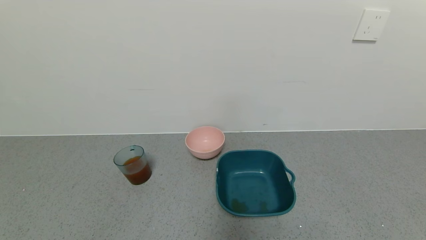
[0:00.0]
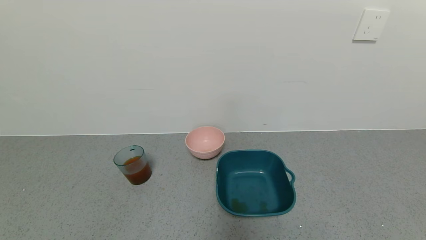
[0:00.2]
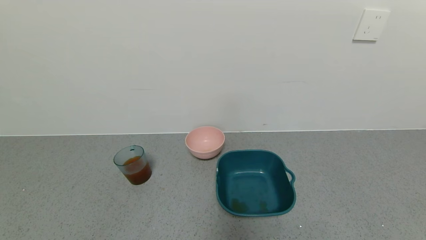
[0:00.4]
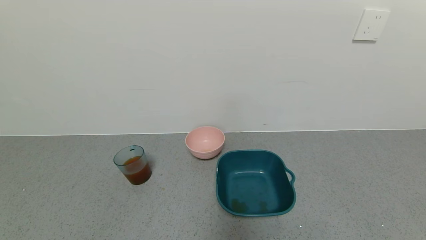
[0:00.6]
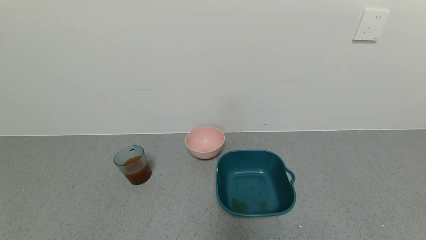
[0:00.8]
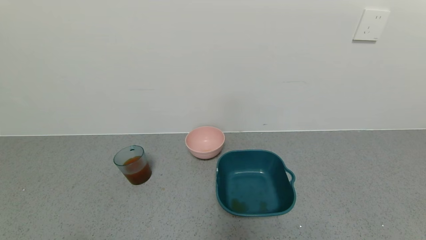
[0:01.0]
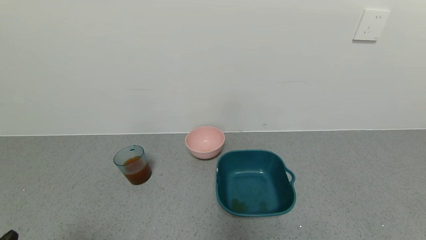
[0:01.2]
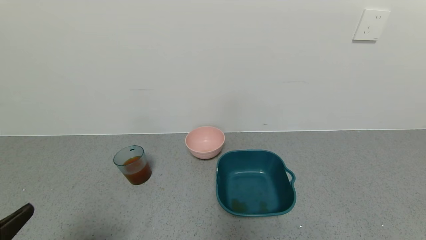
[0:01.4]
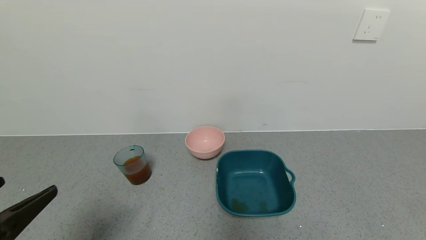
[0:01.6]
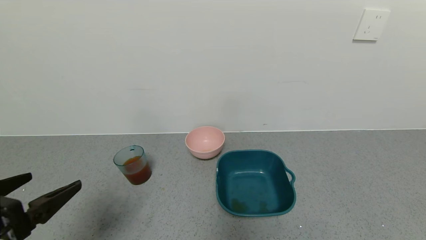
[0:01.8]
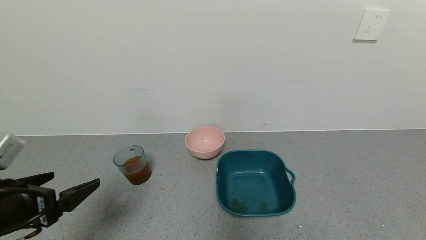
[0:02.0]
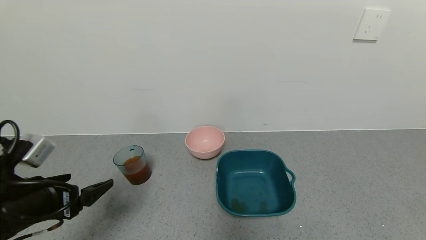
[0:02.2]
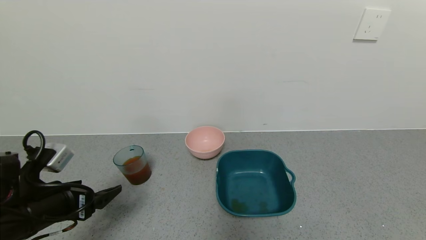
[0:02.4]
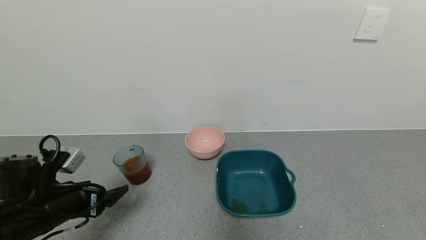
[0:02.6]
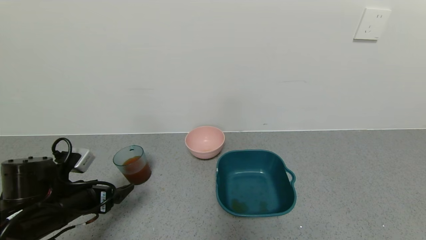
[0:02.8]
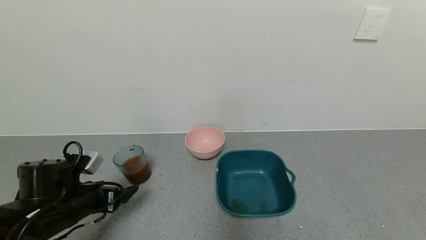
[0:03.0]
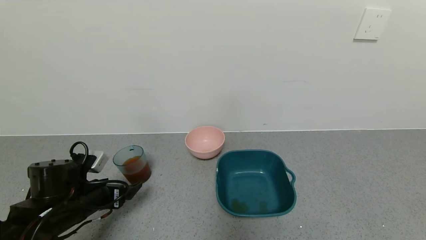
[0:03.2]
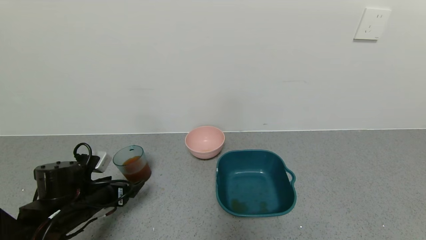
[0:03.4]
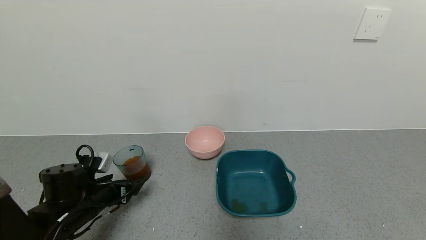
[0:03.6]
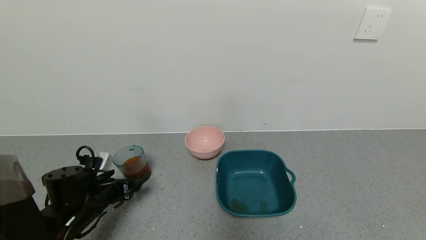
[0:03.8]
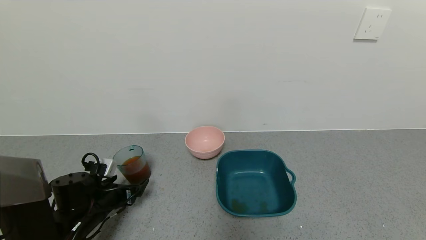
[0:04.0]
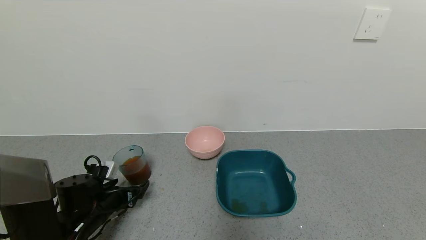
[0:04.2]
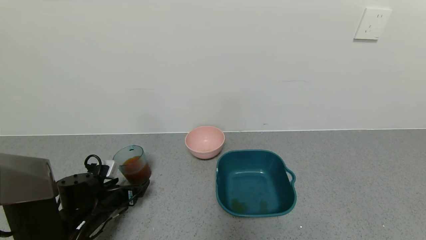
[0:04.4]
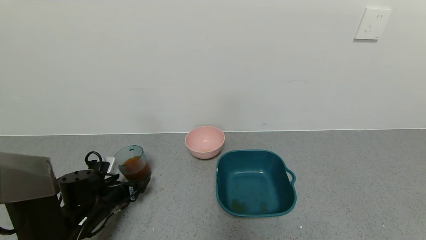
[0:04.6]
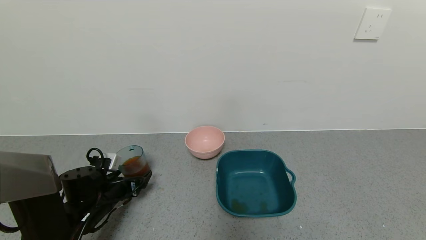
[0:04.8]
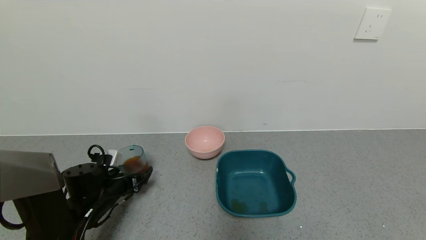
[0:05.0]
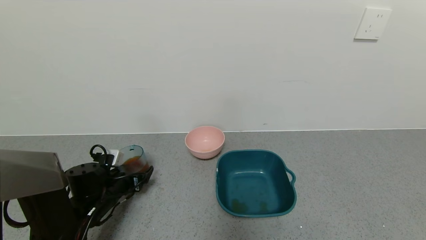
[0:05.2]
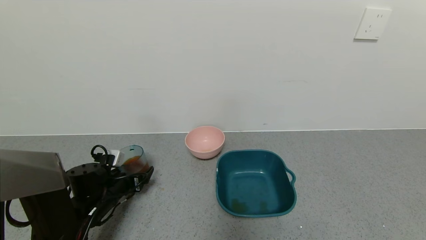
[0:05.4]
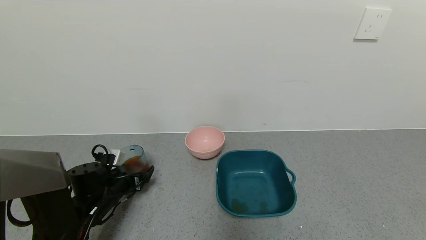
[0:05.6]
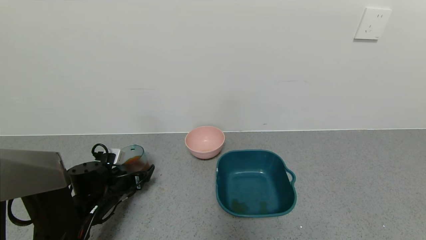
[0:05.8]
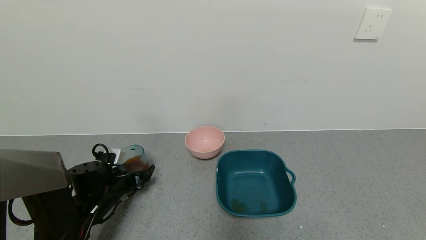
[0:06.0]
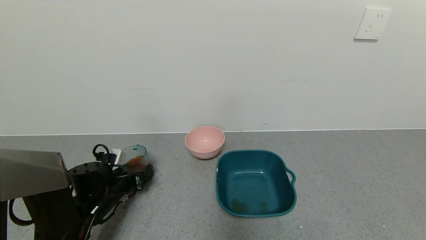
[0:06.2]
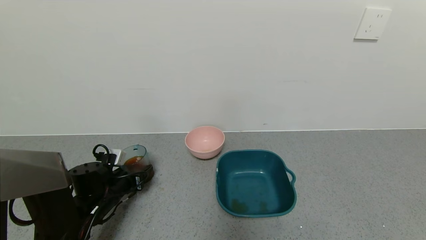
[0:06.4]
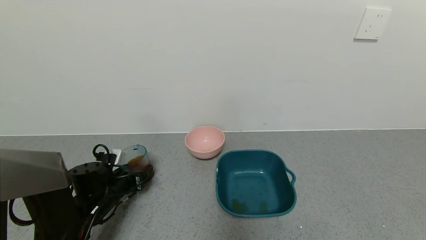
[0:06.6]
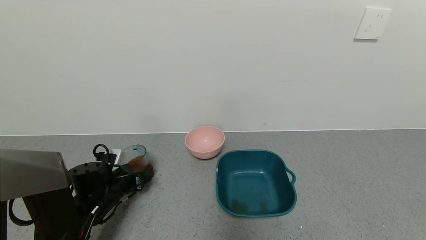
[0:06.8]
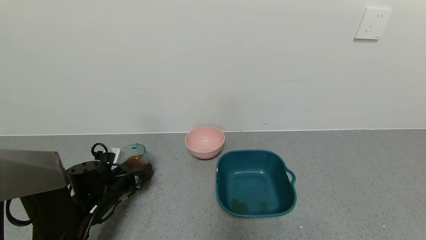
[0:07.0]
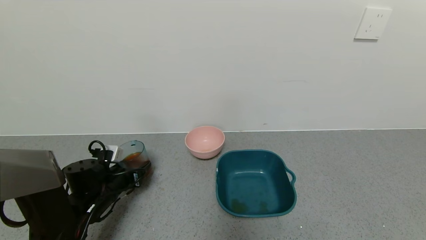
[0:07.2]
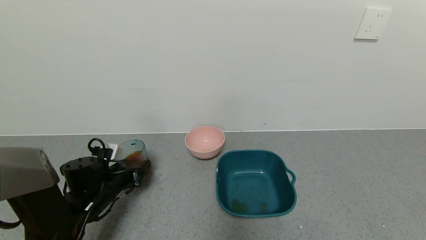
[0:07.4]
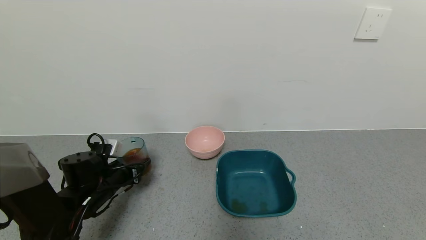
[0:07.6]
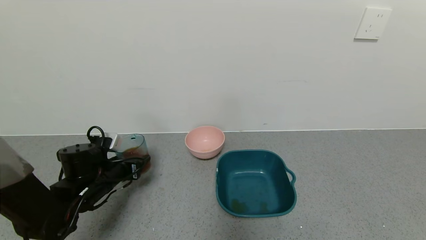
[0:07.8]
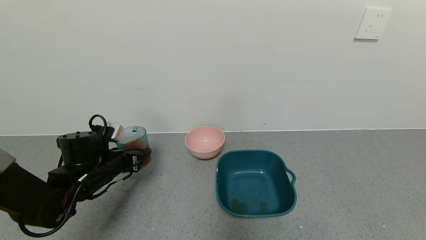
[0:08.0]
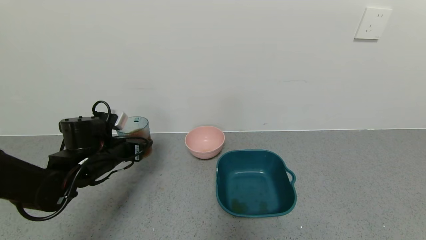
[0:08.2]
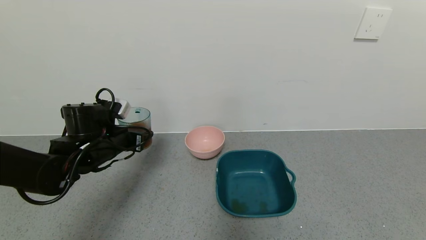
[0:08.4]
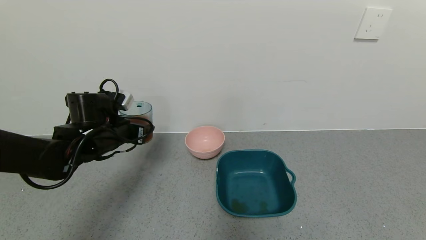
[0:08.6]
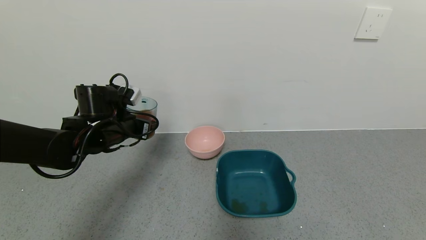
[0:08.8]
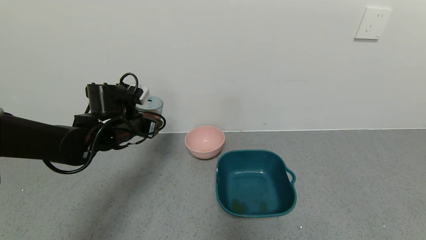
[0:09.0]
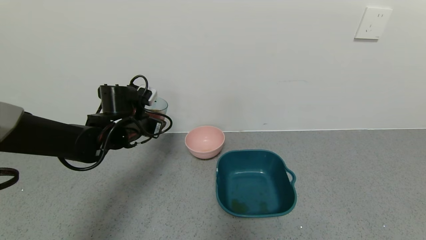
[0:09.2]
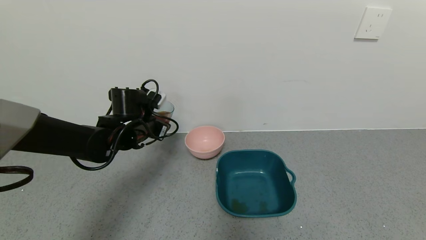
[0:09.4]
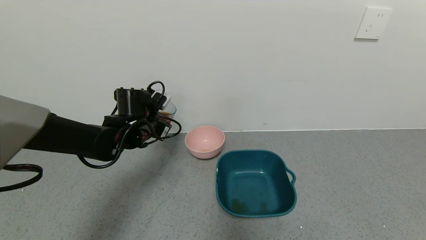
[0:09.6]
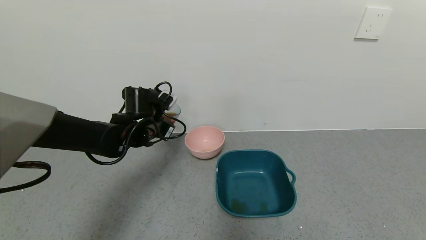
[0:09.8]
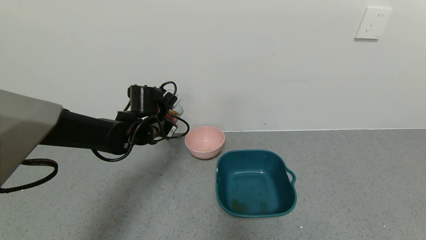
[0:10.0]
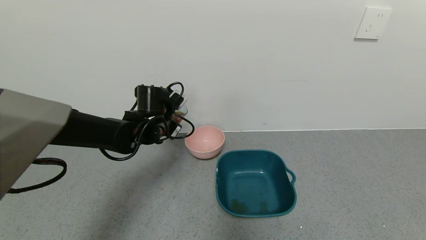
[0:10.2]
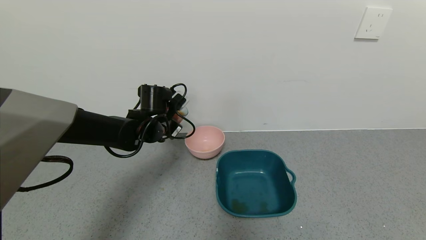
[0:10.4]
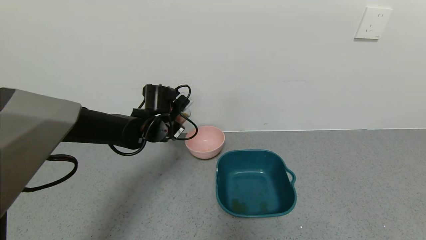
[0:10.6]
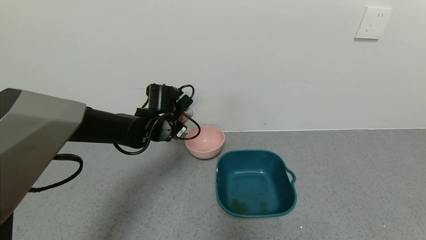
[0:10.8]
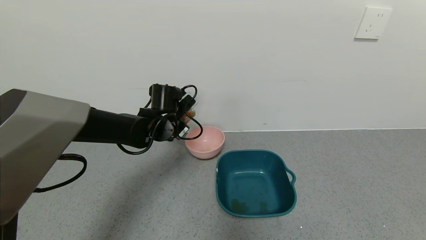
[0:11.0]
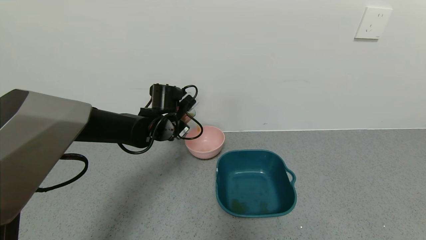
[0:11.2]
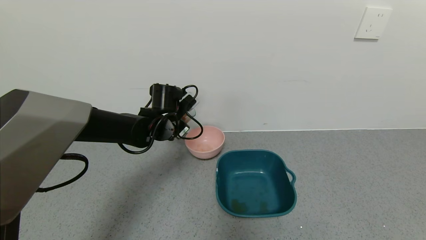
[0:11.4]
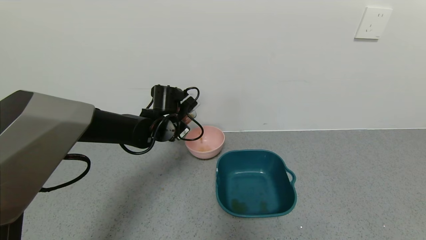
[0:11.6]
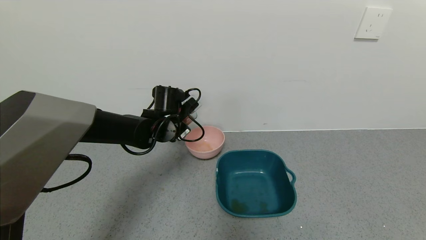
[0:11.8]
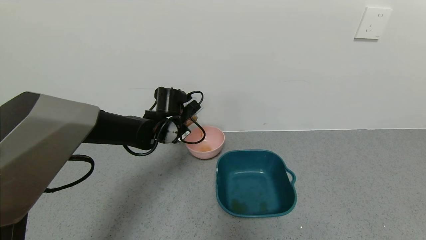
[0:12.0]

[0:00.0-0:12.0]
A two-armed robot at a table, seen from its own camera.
Task of the whole recording: use a gripper to pick up the cup and pour the liquid into a bowl or tray.
Step, 0:00.0 to 0:08.8: Pick up blue cup filled with tea with left gripper.
0:00.0 to 0:01.6: The left gripper goes about 15 cm upward and forward.
0:01.6 to 0:03.0: The left gripper shifts about 20 cm forward and downward.
0:03.0 to 0:04.4: The left gripper travels downward by roughly 5 cm.
0:04.4 to 0:06.0: There are only small adjustments of the grippers.
0:06.0 to 0:07.6: The left gripper closes.
0:07.6 to 0:09.0: The left gripper travels upward, forward and to the right by approximately 15 cm.
0:09.0 to 0:10.4: The left gripper moves to the right, approximately 5 cm.
0:10.4 to 0:12.0: There are only small adjustments of the grippers.

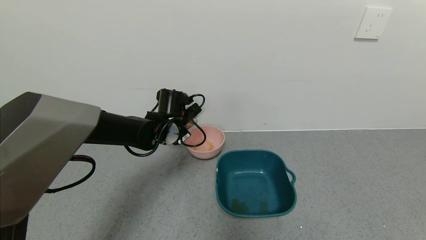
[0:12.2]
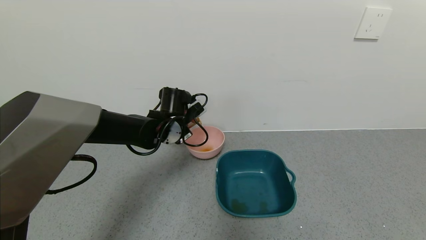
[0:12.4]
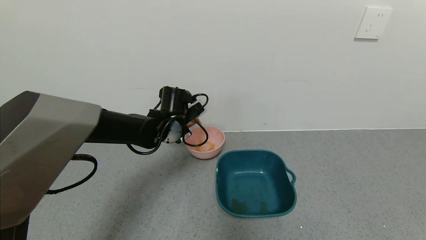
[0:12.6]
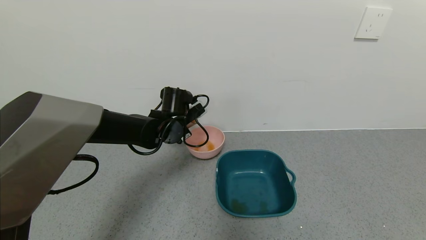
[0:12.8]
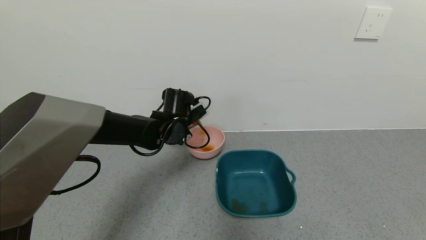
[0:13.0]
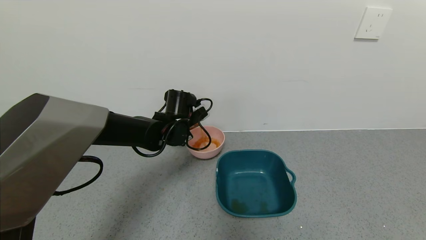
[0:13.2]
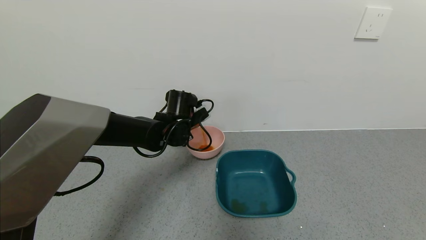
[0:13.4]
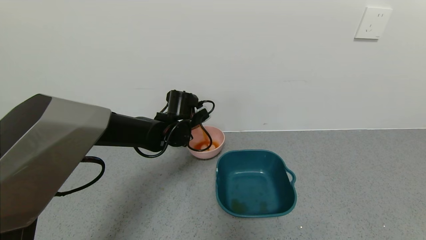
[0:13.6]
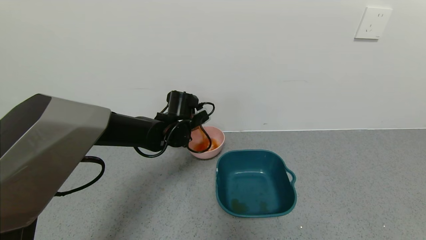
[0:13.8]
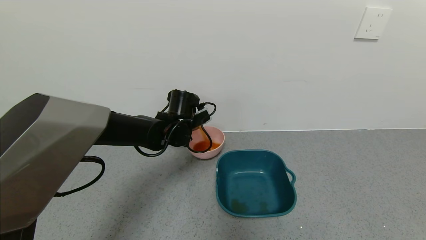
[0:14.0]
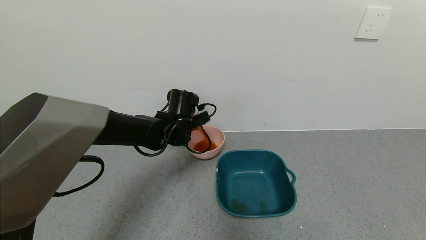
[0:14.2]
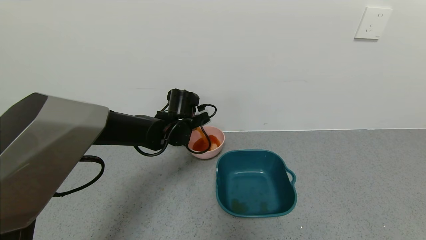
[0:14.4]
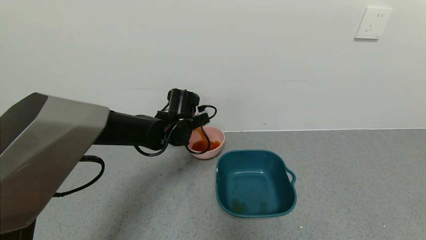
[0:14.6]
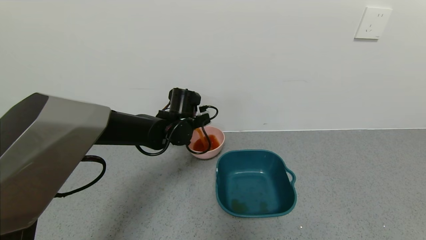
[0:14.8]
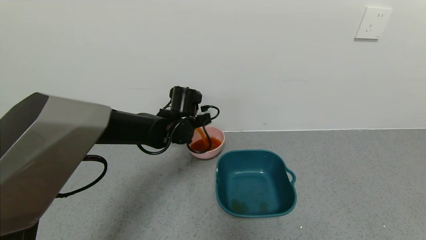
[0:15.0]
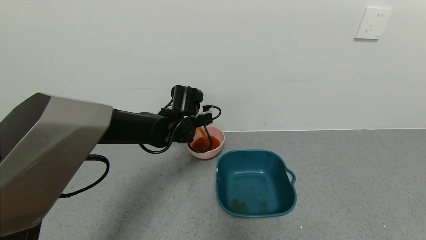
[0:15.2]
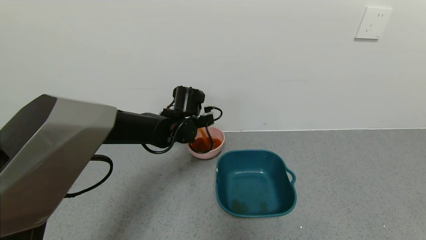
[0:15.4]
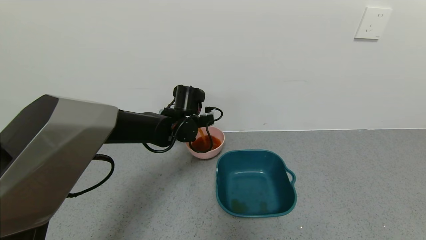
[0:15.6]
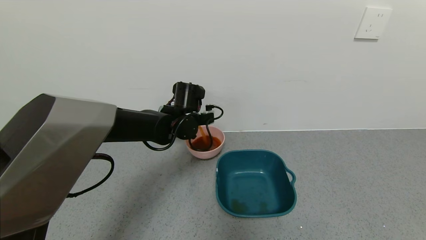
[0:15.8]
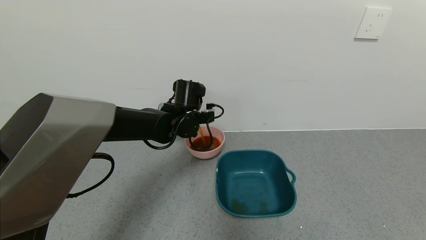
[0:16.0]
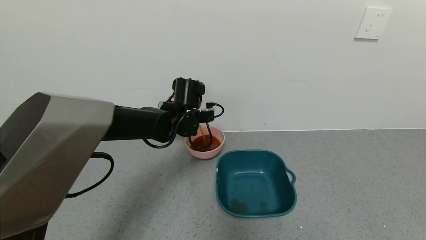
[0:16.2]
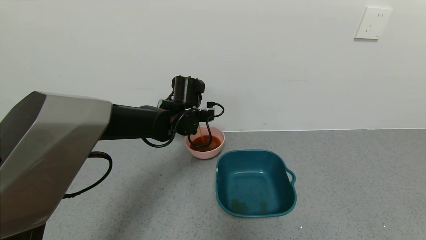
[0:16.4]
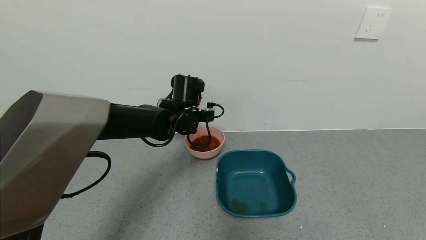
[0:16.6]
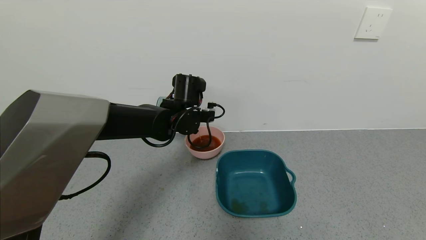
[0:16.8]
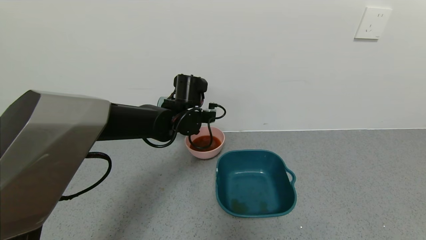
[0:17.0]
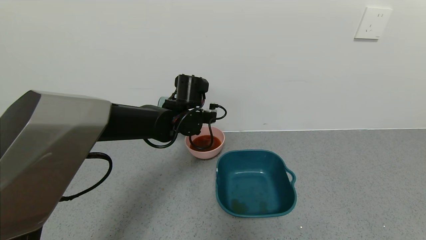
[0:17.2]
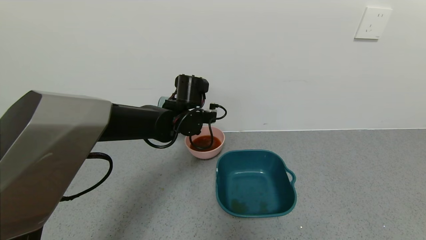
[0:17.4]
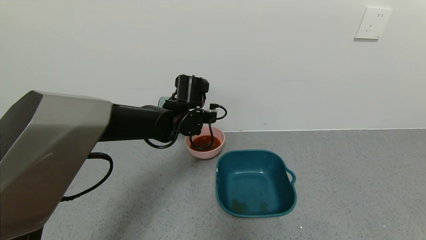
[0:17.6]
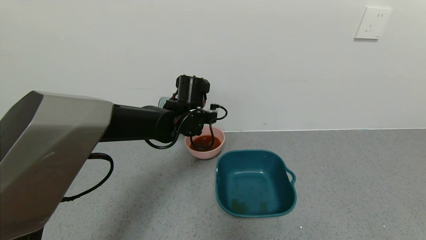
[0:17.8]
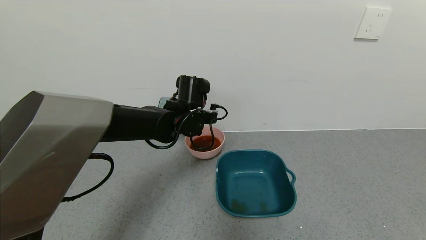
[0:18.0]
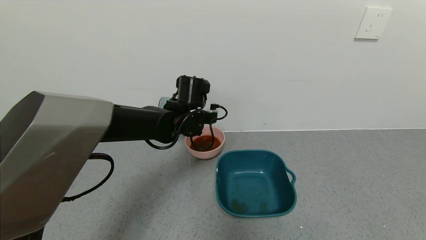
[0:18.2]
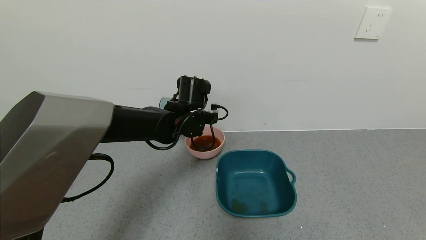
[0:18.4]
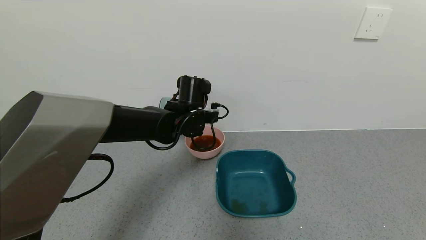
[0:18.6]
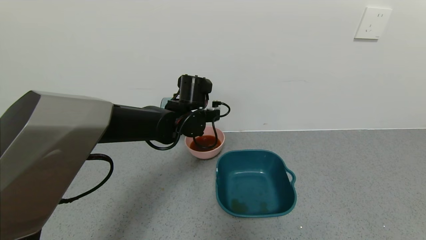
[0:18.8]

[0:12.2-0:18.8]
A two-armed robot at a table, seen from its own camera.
Task of the whole recording: use a gripper to pick up the cup and pour the liquid into a bowl or tray.
0:12.2 to 0:13.8: The grippers move only a little.
0:13.8 to 0:15.4: The grippers stay close to where they were, moving slightly.
0:15.4 to 0:18.8: The grippers make only small movements.
